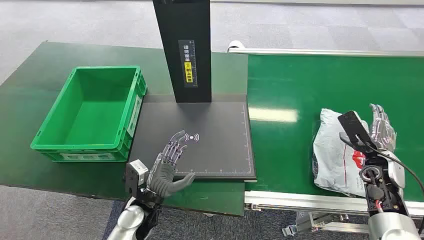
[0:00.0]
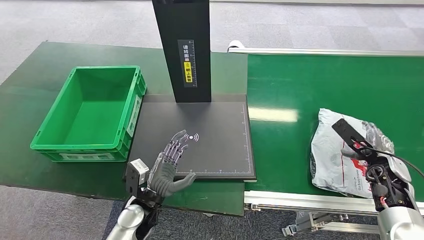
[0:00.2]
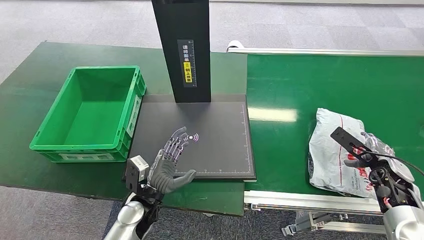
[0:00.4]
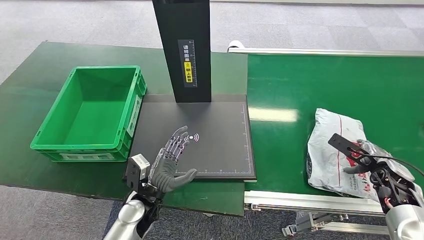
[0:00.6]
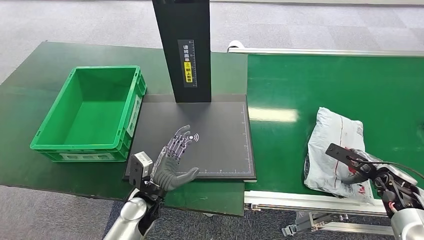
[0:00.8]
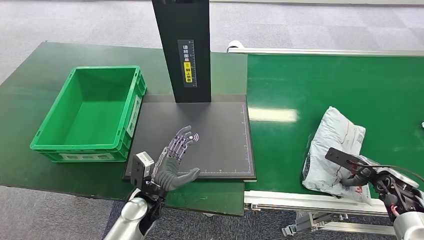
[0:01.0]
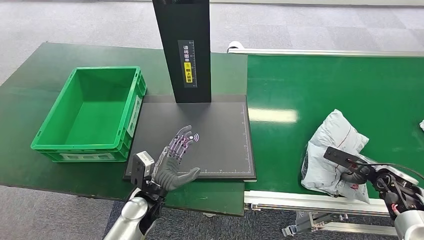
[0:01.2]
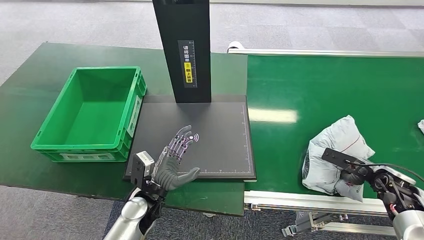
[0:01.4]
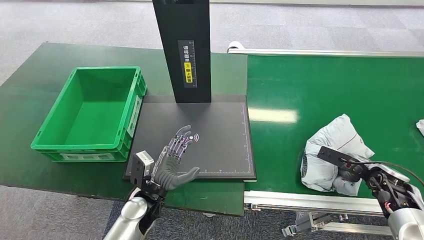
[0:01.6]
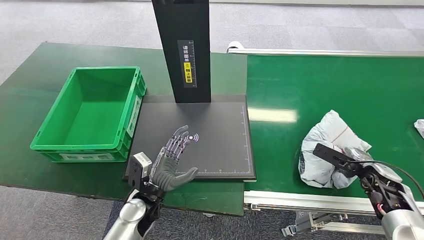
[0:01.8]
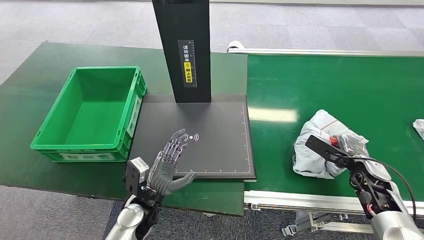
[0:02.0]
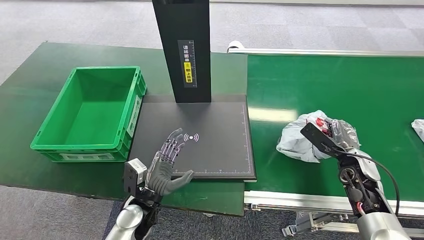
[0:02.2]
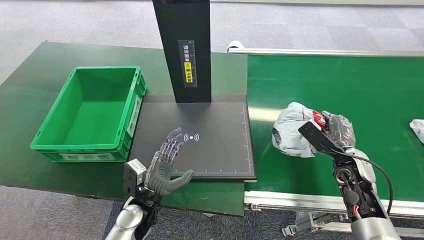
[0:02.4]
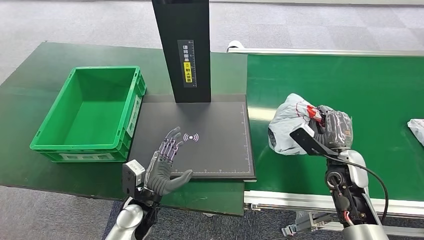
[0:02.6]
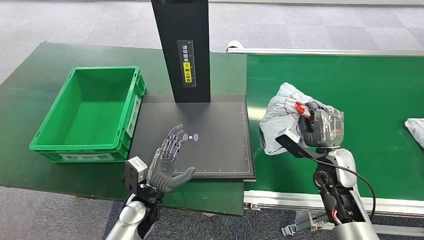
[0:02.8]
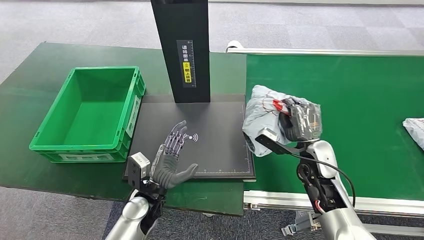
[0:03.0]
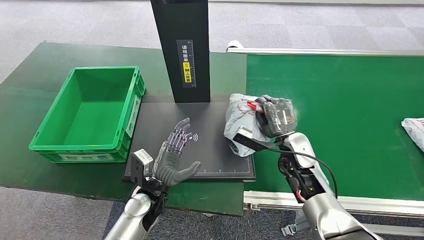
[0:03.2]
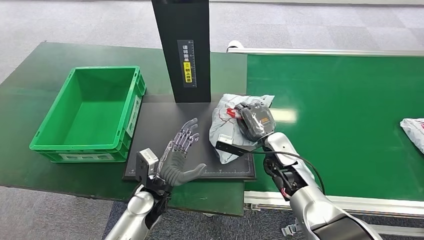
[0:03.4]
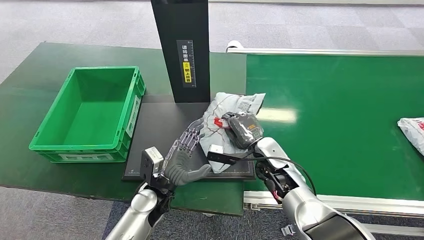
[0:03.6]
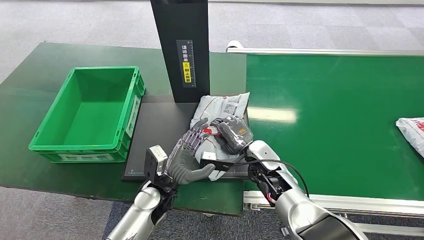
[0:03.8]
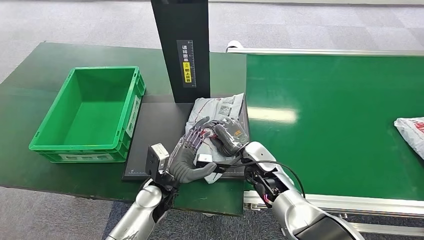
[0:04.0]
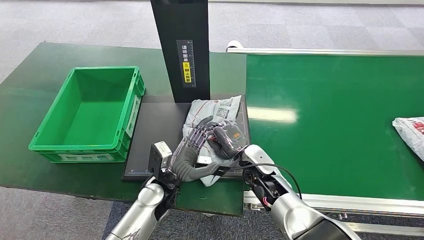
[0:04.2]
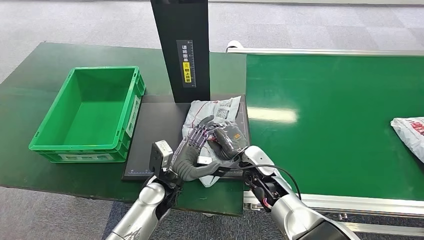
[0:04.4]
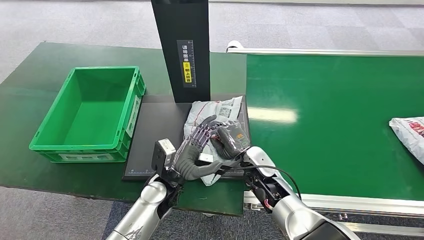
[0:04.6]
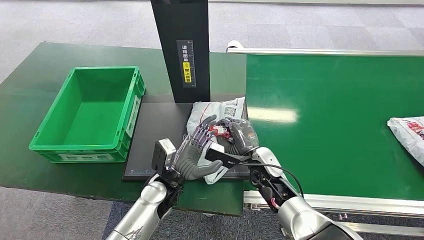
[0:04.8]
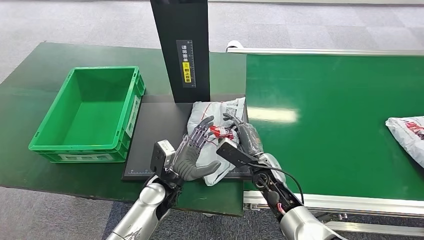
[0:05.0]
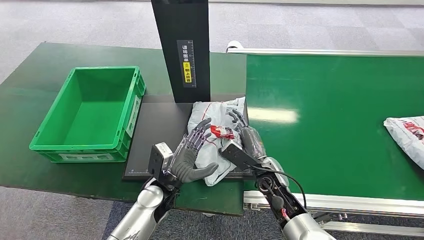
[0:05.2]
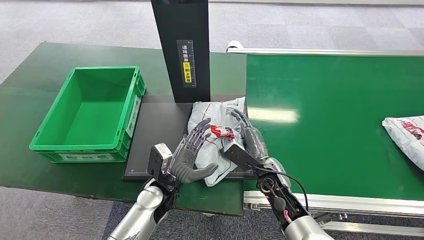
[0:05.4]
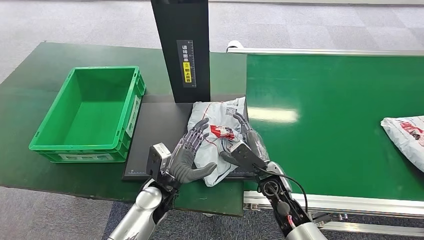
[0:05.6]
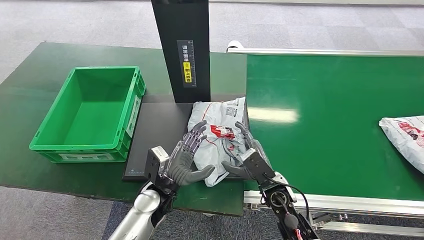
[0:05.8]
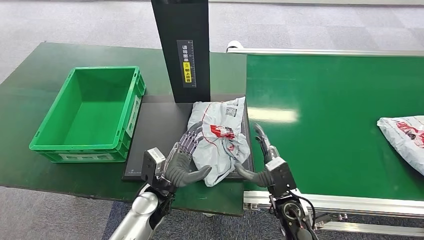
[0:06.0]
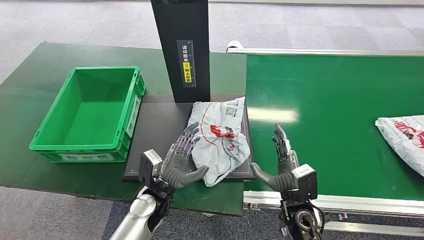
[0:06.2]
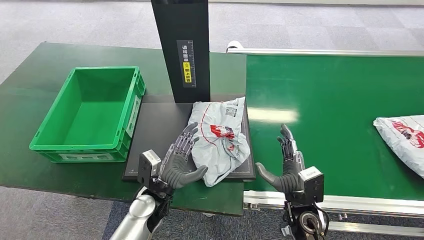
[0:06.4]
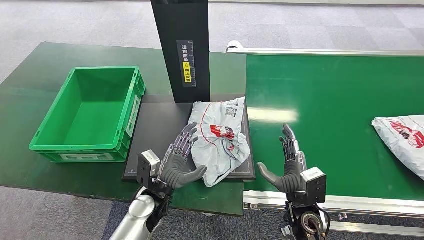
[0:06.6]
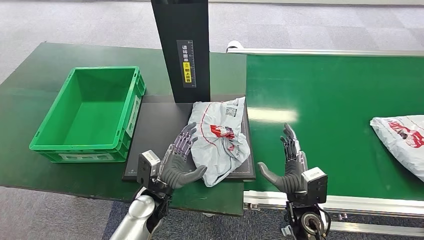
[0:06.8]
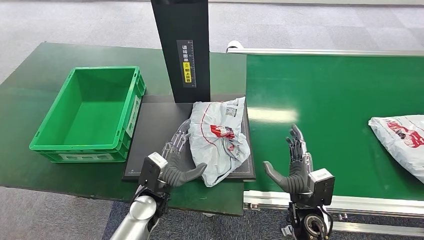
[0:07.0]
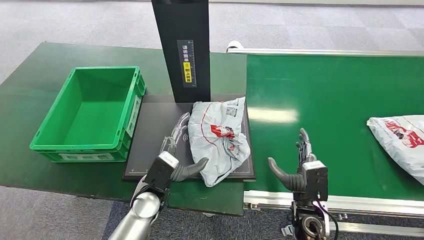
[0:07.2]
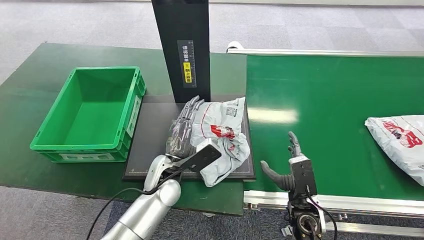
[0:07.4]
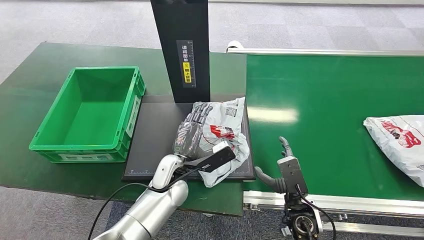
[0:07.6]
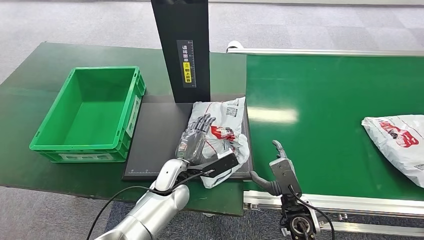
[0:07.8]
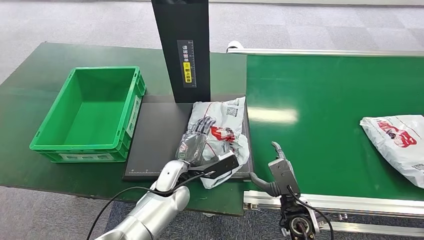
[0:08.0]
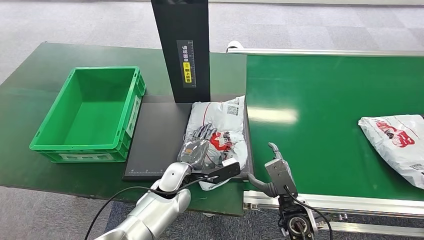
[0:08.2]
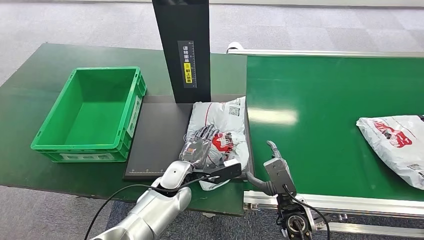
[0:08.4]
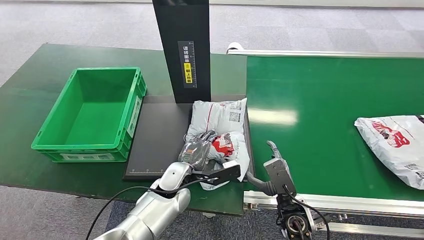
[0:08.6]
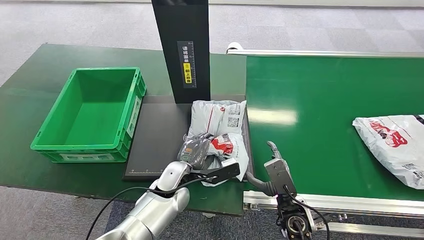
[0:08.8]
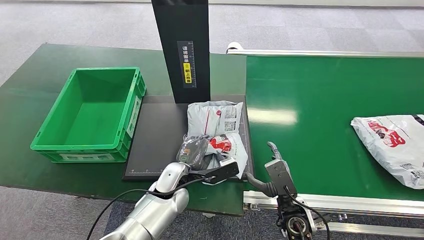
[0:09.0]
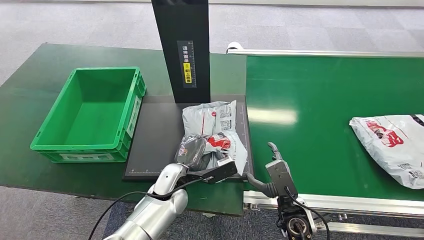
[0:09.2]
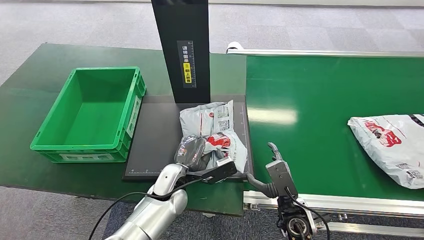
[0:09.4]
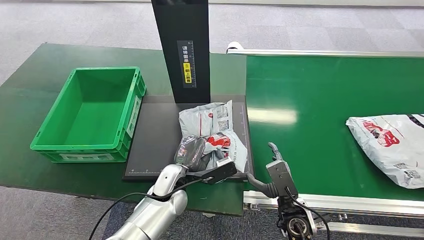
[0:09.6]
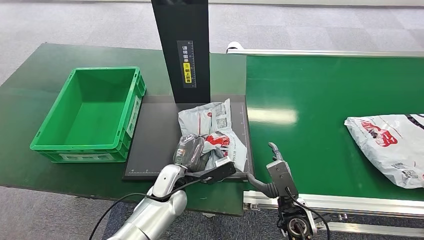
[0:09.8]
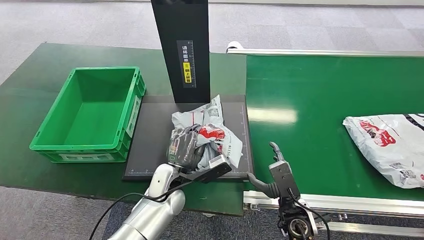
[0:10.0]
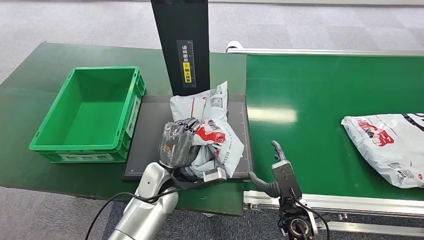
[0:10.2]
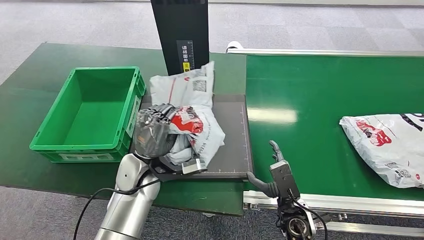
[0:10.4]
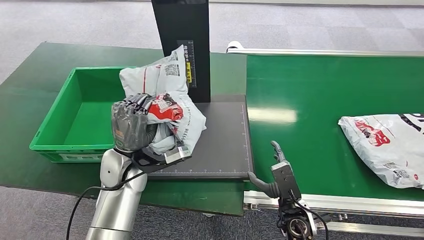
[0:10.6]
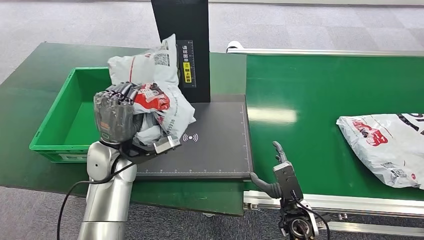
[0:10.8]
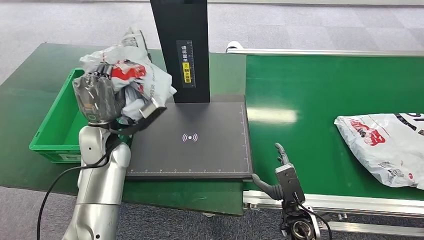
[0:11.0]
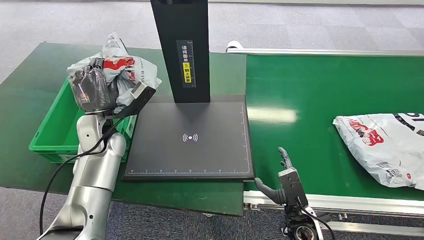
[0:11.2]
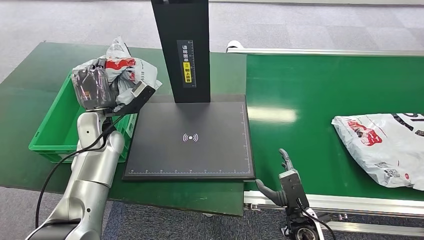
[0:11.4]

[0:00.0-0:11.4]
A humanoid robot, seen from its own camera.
Step, 0:00.0 to 0:03.2: Pick up the package from the conveyor belt.
Step, 0:03.4 to 0:06.8: Place the package onto the inbound machine.
Step, 0:07.2 to 0:11.2: Pick up the package from the inbound machine.
0:01.4 to 0:02.8: The right hand moves to the left, roughly 20 cm.
0:02.8 to 0:04.2: The left hand moves roughly 5 cm. Meanwhile the right hand goes some 20 cm to the left.
0:04.2 to 0:05.6: The right hand changes place by about 5 cm.
0:05.6 to 0:07.2: The right hand is displaced backward and to the right by about 10 cm.
0:07.2 to 0:08.6: The left hand shifts by approximately 5 cm.

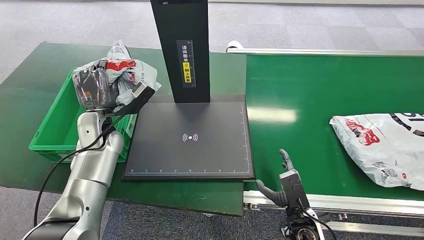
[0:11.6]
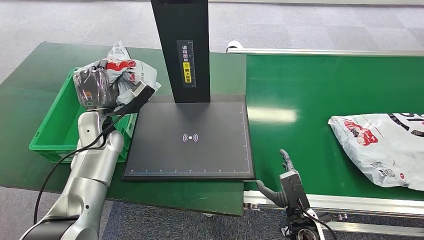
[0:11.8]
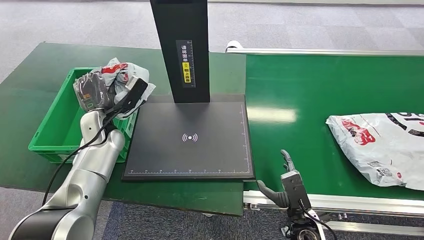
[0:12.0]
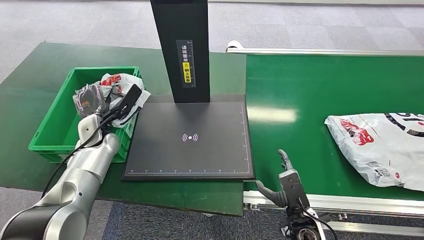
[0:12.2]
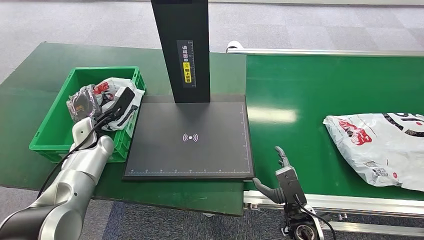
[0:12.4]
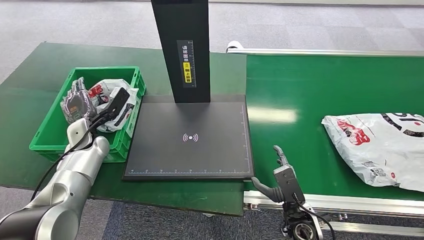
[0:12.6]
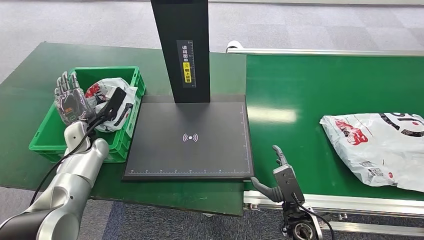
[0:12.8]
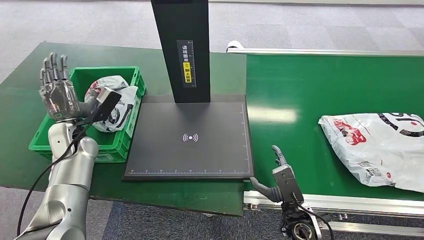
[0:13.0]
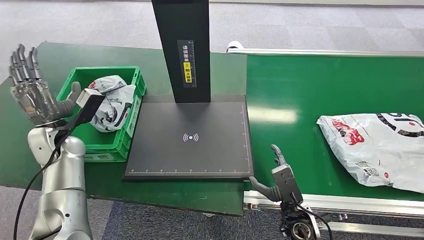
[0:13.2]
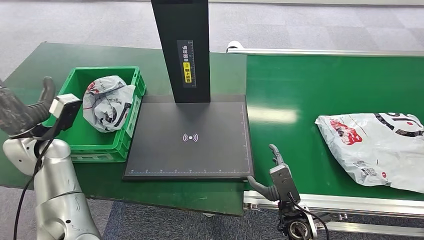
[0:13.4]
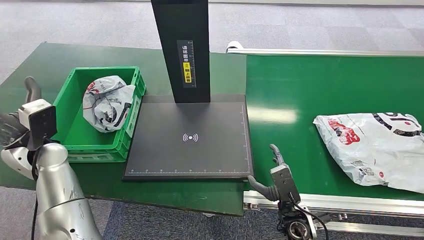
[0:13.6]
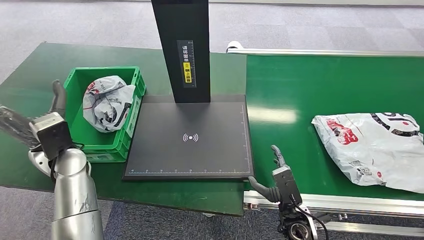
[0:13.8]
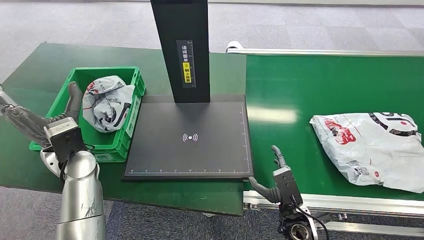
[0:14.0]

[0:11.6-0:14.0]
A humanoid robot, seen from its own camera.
Step, 0:11.6 to 0:14.0: Place the package into the parcel locker.
0:11.6 to 0:12.8: The left hand shifts approximately 10 cm to the left and downward.
0:12.8 to 0:14.0: The left hand travels backward, upward and to the right by some 10 cm.
